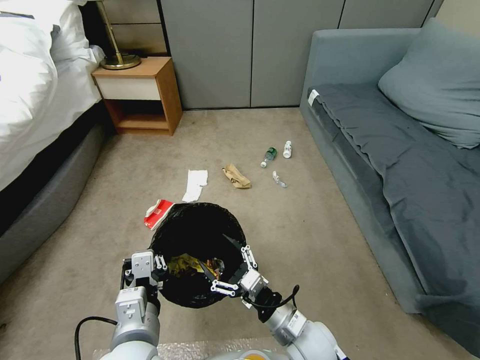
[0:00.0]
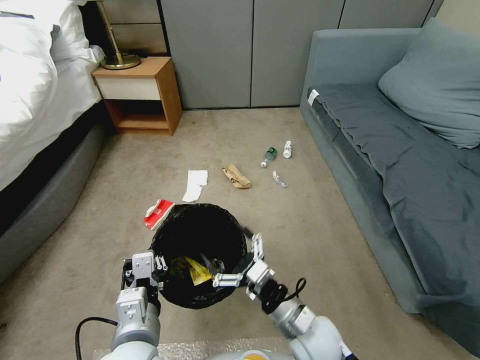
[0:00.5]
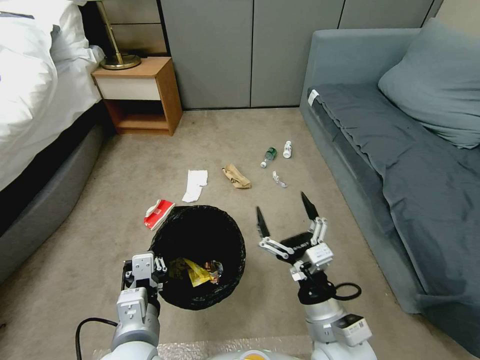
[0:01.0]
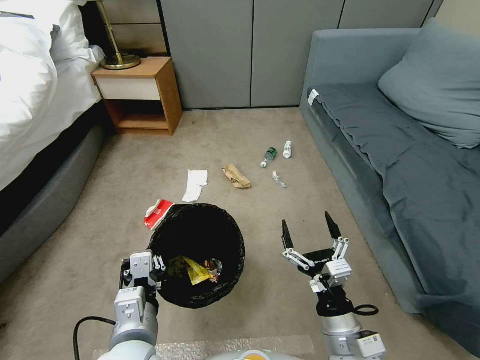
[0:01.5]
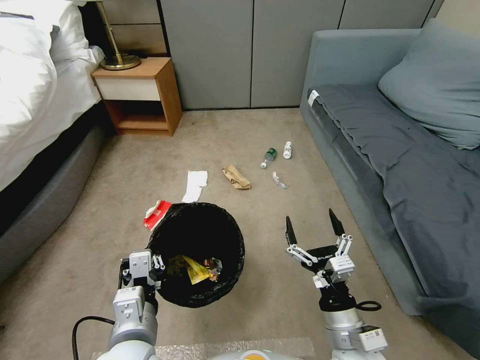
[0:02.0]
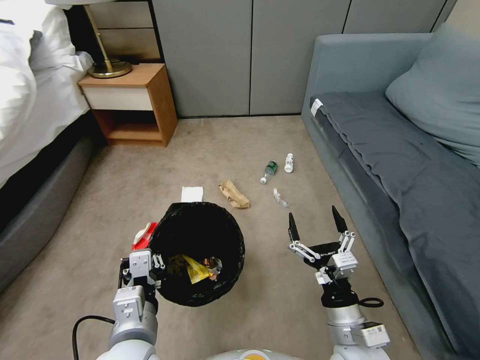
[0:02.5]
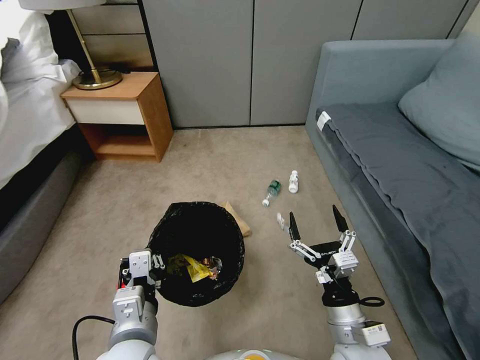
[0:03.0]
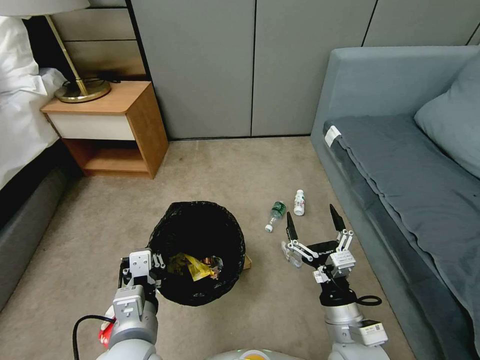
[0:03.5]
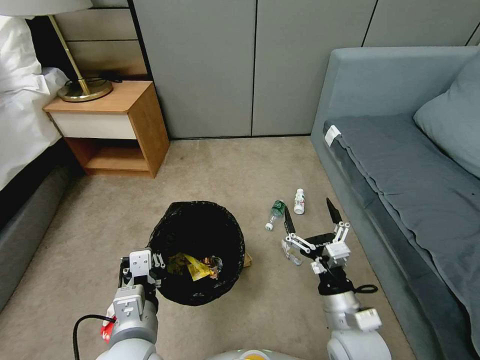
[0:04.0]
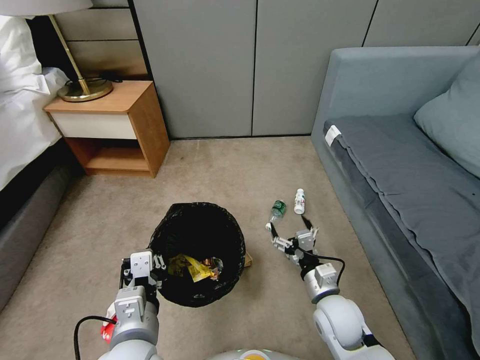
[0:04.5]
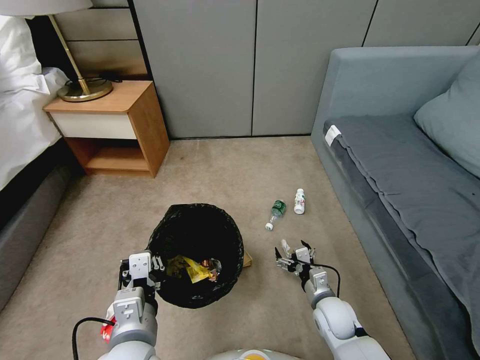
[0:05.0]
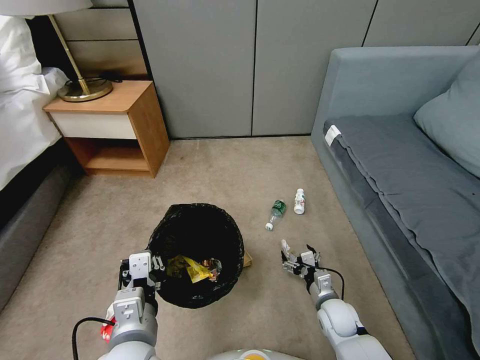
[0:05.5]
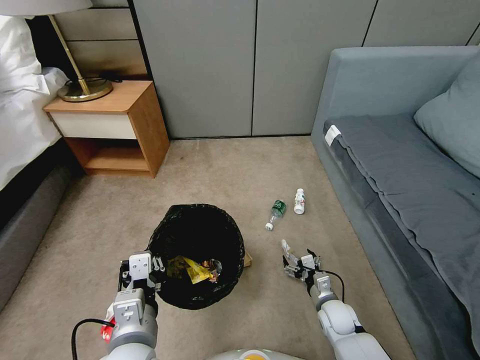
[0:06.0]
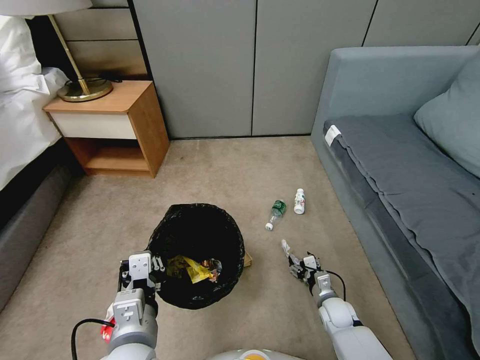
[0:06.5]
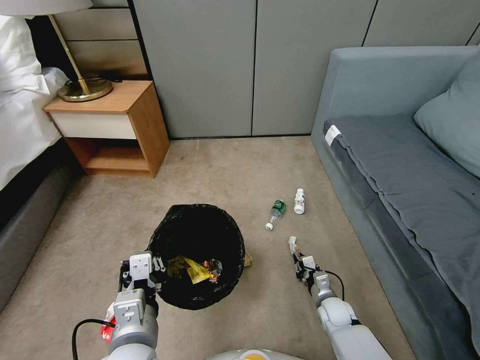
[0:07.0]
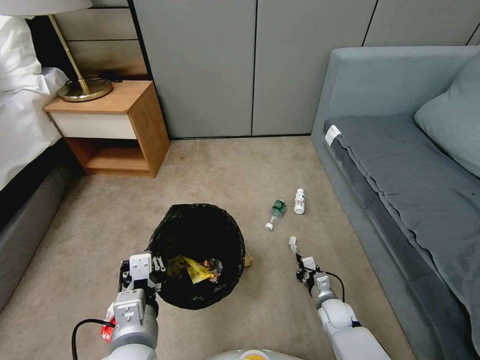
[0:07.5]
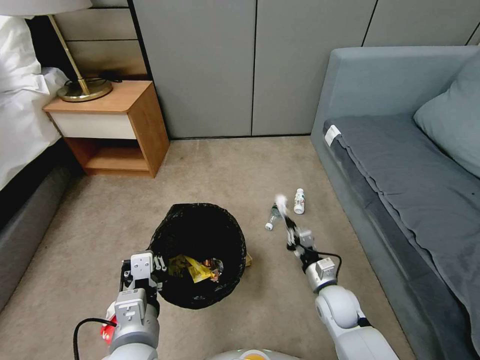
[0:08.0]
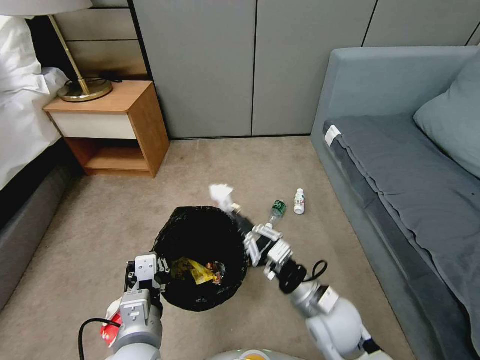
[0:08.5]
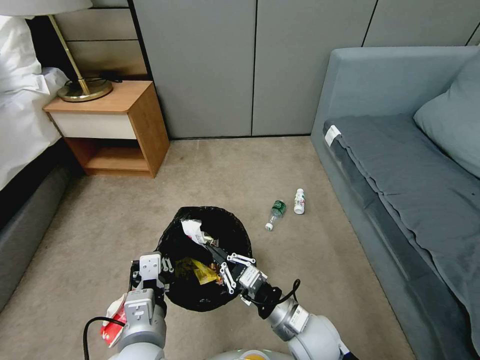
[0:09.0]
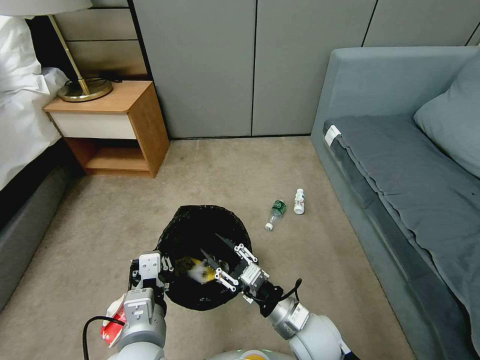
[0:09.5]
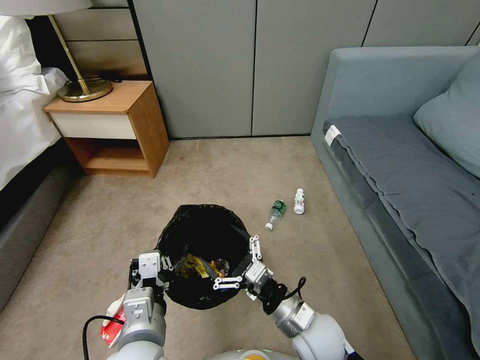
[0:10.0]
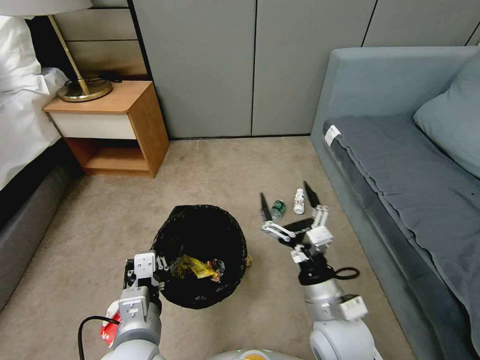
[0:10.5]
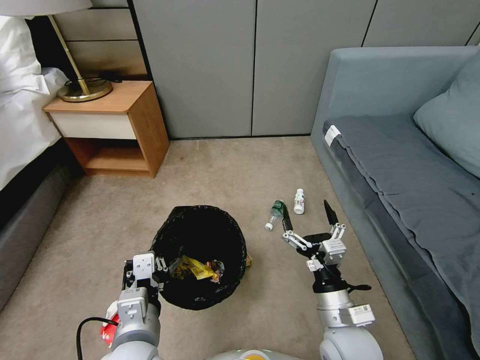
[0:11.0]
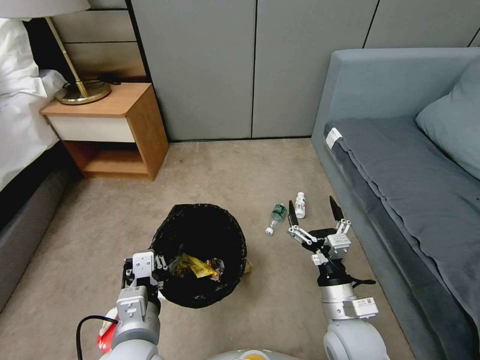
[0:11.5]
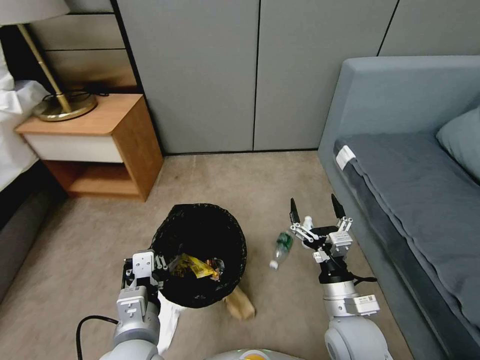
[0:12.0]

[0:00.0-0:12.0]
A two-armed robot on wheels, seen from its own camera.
Task of the whole recording: Pick up the trash bin, then pick up the garbage from the floor and place it into the trash bin.
0:00.0 to 0:02.0: The right gripper goes some 10 cm to the right and upward.
0:04.0 to 0:06.0: The right gripper shifts approximately 20 cm downward and forward.
0:06.0 to 0:08.0: The right gripper is displaced upward by some 10 cm, and closes its fingers.
0:08.0 to 0:10.0: The right gripper goes about 15 cm upward, to the left and backward, and opens.
0:10.0 to 0:12.0: The right gripper goes approximately 5 cm to the right.

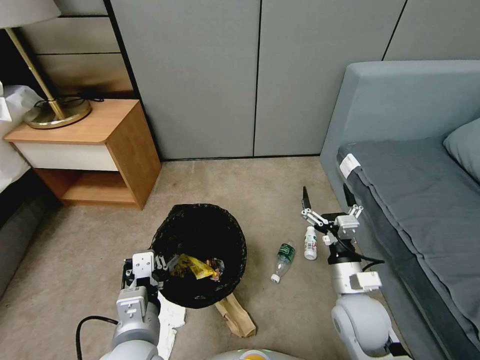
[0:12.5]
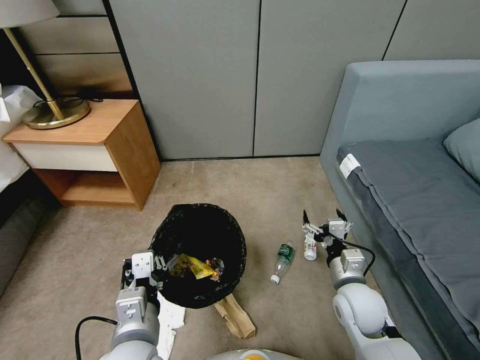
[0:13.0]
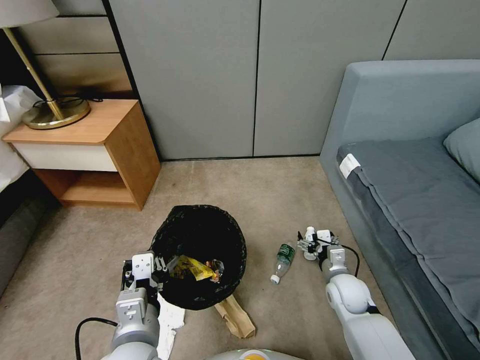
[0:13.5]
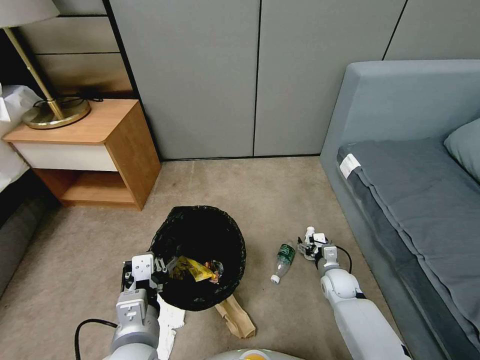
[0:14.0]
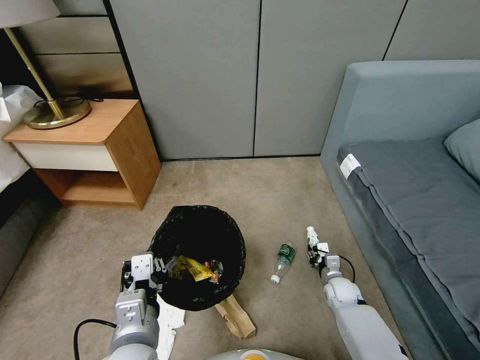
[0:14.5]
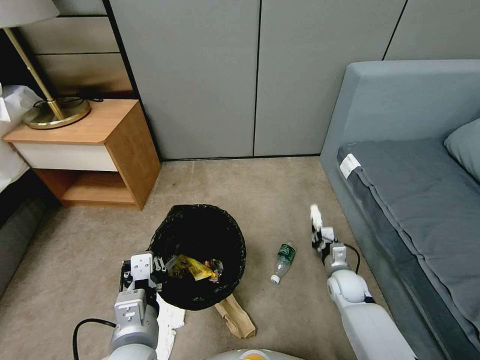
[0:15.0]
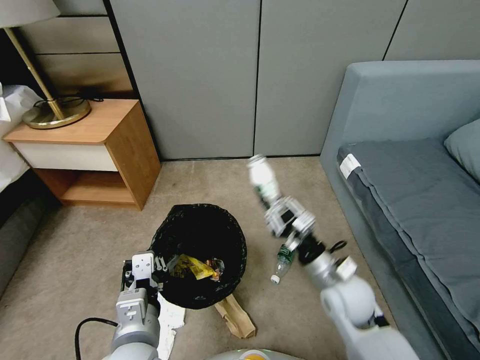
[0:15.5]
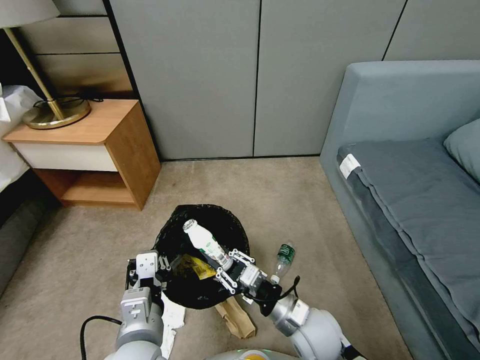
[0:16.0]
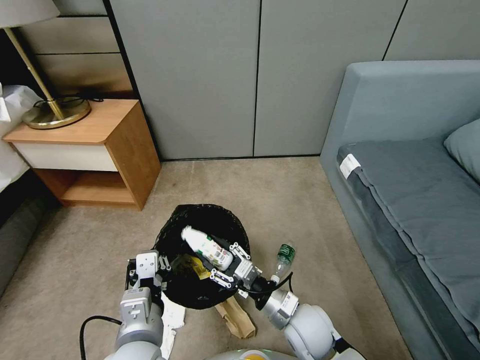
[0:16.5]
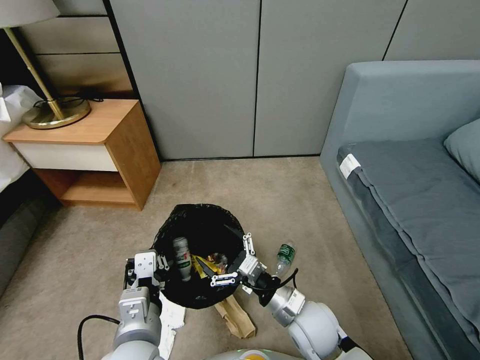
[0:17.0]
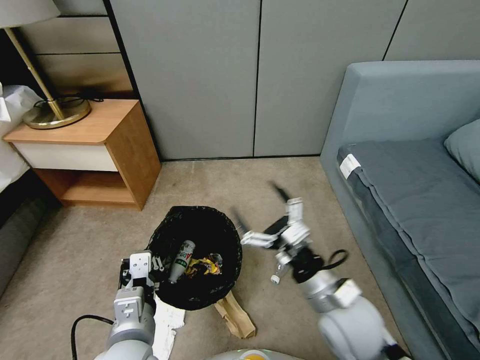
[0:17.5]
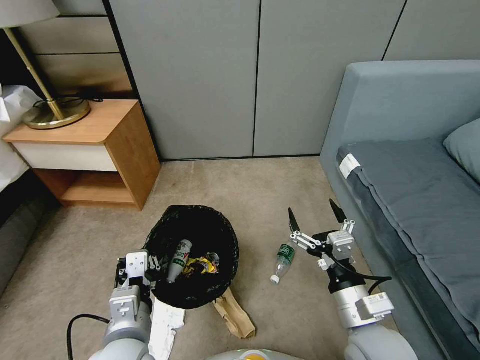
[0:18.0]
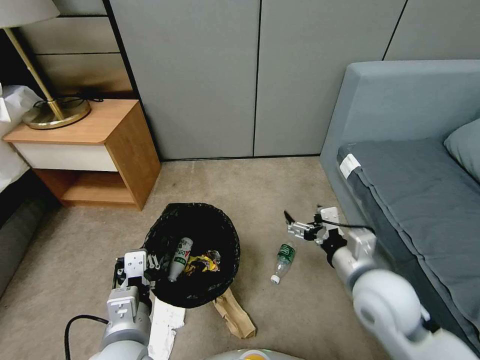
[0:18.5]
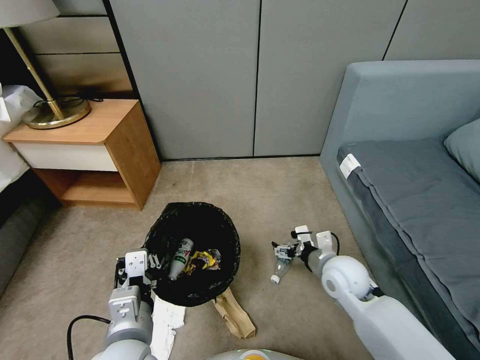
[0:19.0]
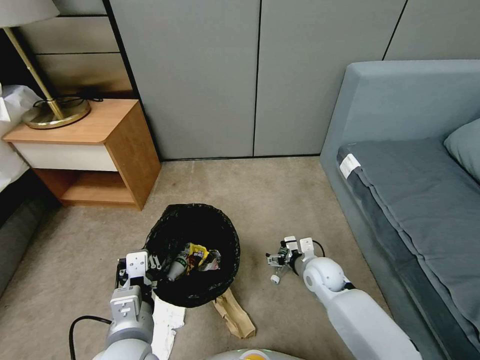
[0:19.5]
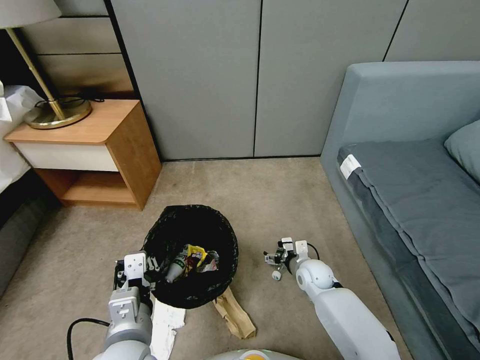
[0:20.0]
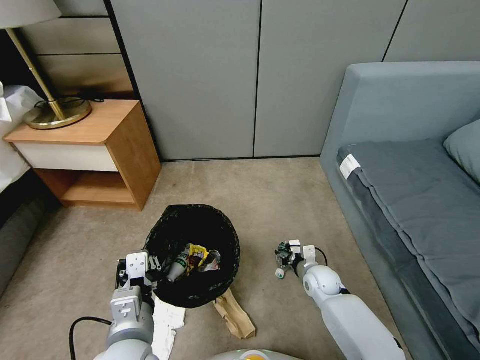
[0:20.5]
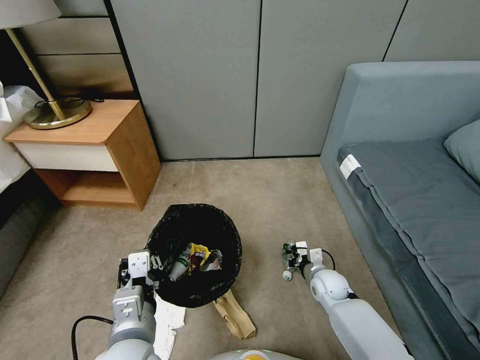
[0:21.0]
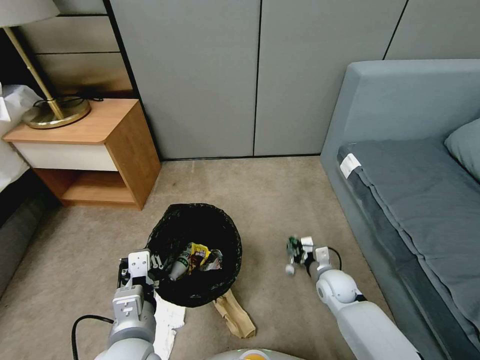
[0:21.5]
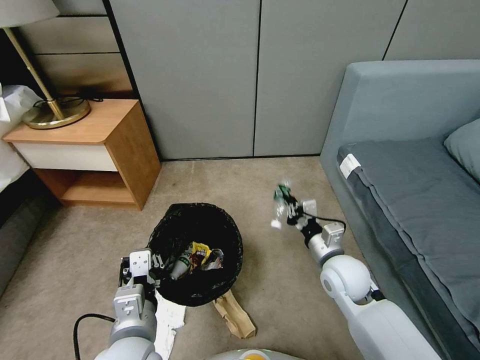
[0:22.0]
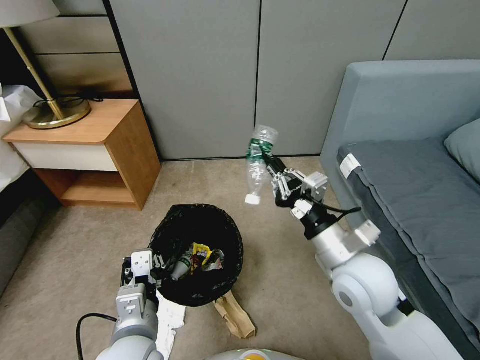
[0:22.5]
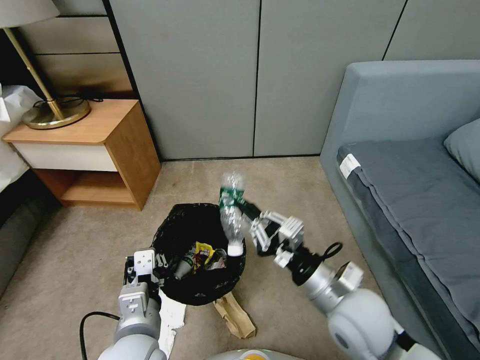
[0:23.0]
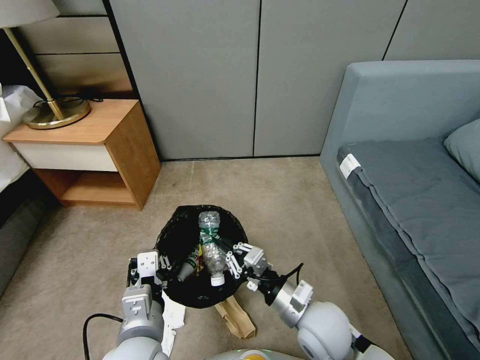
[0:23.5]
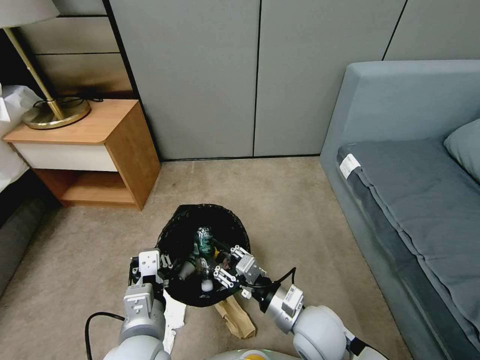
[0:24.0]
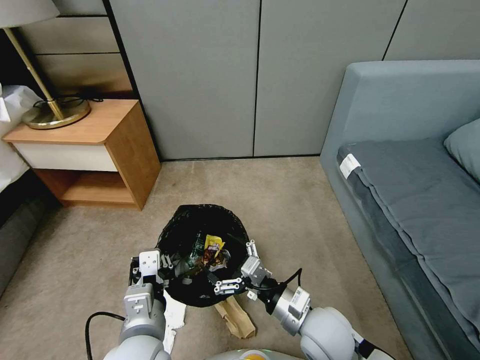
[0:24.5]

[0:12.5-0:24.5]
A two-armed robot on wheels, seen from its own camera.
Task of the whole recording: Pick up the trash bin, then pick up the garbage from the floor and place it into the trash bin.
0:12.5 to 0:14.5: The right gripper moves downward and forward, approximately 25 cm, and closes up.
0:14.5 to 0:16.5: The right gripper heads upward, to the left and backward, covering approximately 25 cm.
0:16.5 to 0:18.5: The right gripper shifts approximately 20 cm upward and to the right, and opens its fingers.
0:18.5 to 0:20.5: The right gripper shifts roughly 30 cm downward and forward, and closes.
0:20.5 to 0:22.5: The right gripper heads upward, covering some 30 cm, and closes.
0:22.5 to 0:24.5: The right gripper travels downward and backward by about 15 cm, and opens up.

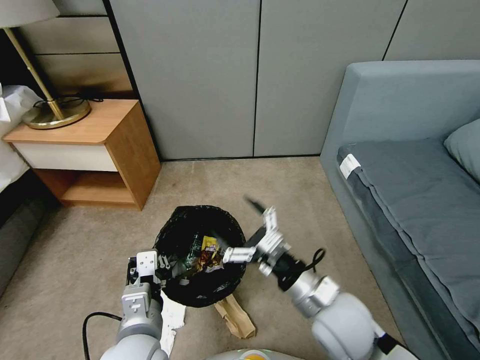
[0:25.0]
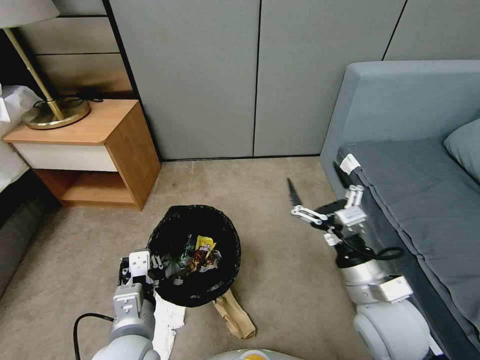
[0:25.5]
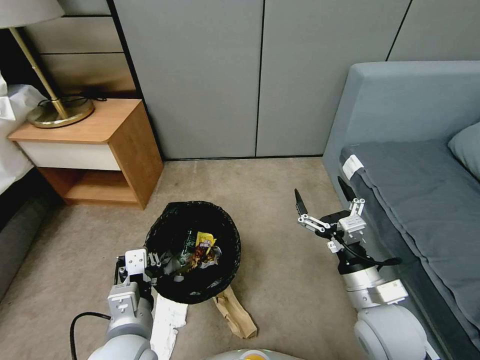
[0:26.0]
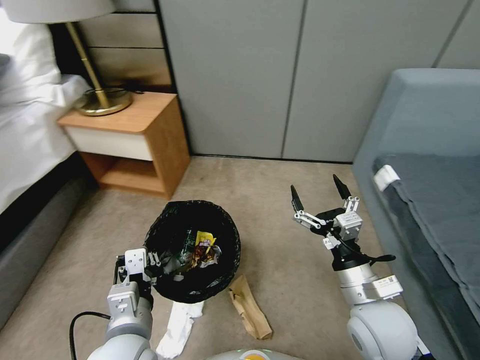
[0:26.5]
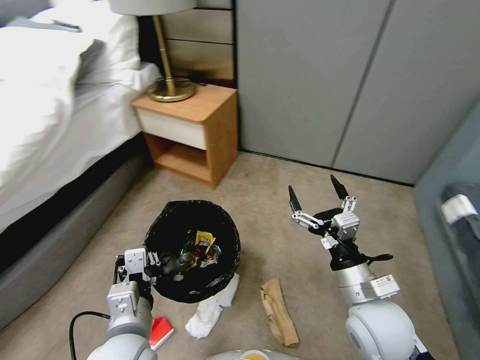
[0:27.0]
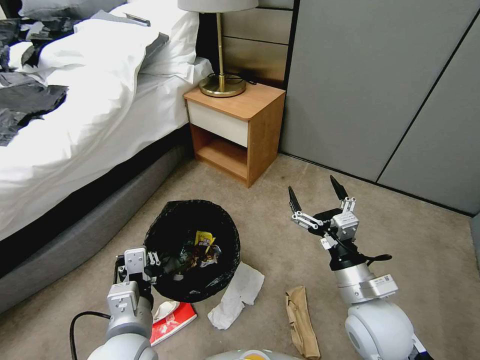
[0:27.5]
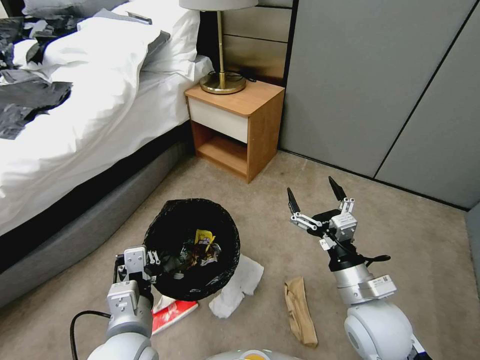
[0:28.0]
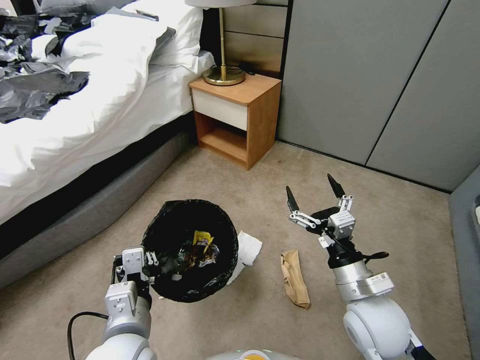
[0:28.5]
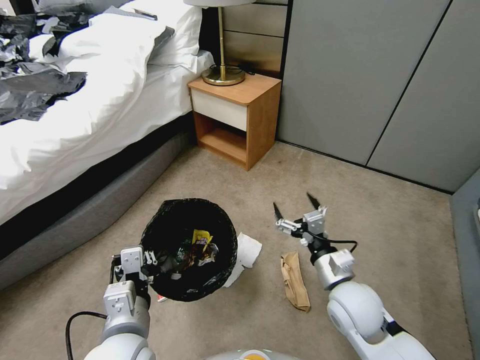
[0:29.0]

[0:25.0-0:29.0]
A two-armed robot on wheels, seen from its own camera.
Task of the whole recording: Pick up the trash bin, then pick up the garbage from the floor and place it into the trash bin.
0:25.0 to 0:27.0: The right gripper travels to the right by approximately 5 cm.
0:27.0 to 0:29.0: The right gripper changes place by roughly 5 cm.
